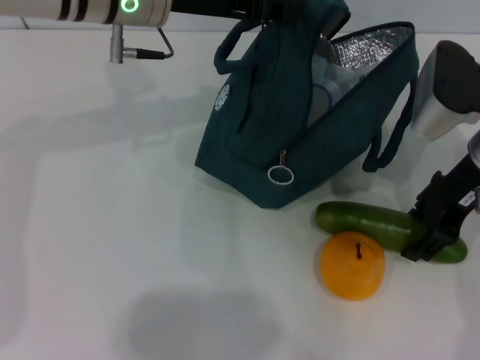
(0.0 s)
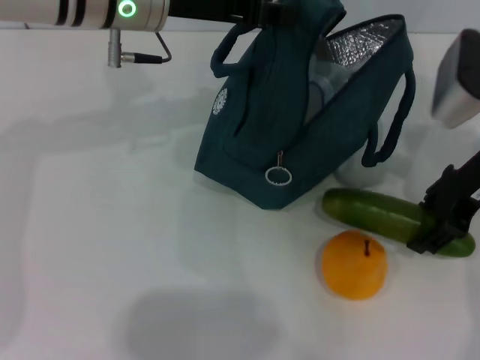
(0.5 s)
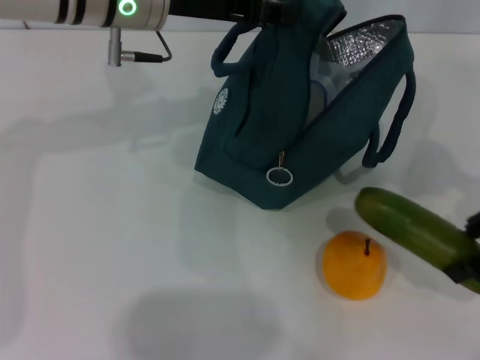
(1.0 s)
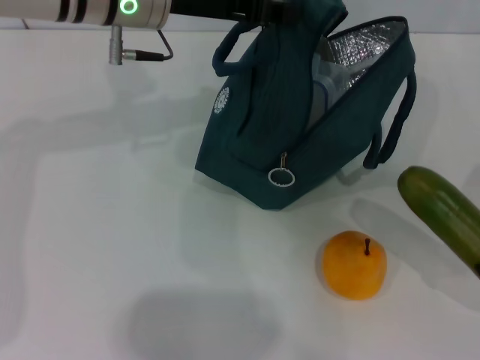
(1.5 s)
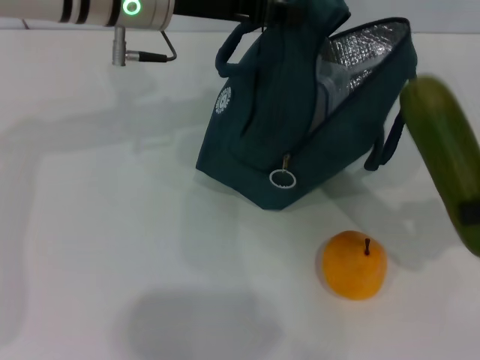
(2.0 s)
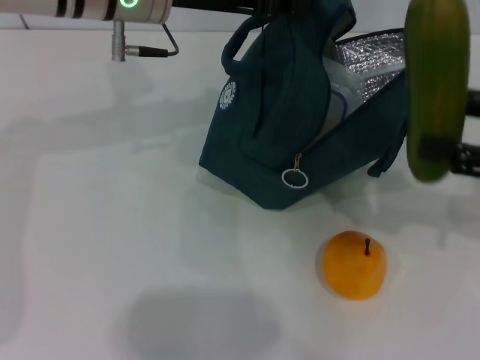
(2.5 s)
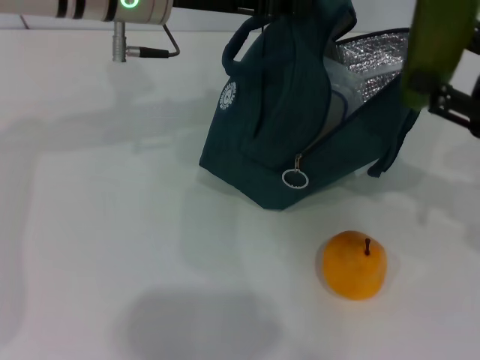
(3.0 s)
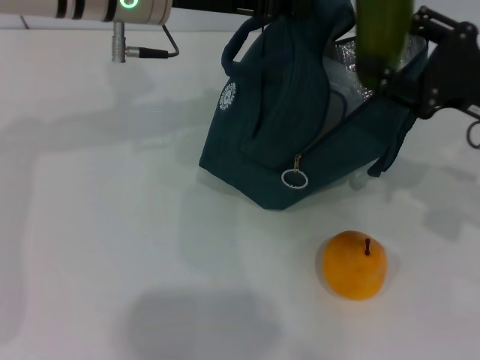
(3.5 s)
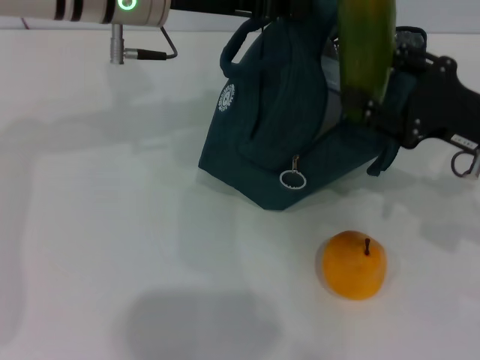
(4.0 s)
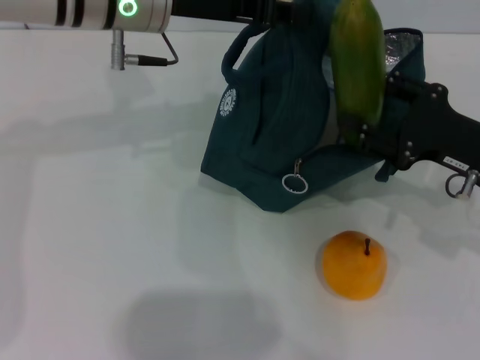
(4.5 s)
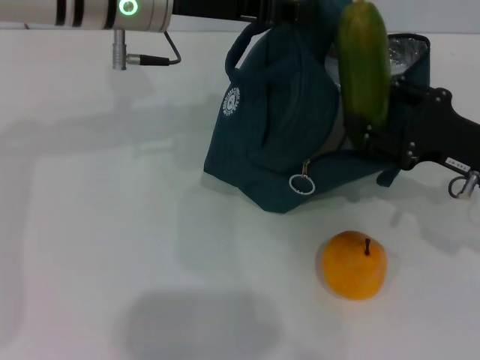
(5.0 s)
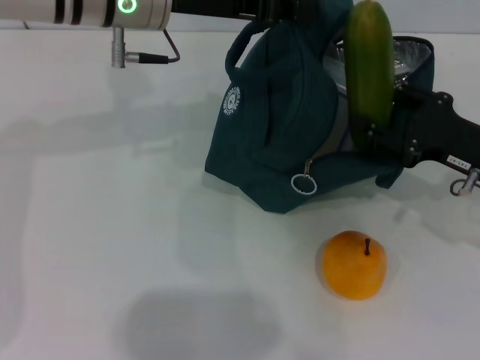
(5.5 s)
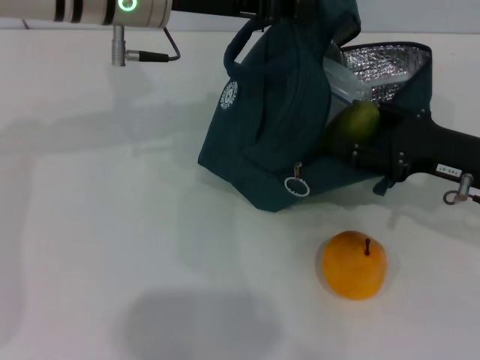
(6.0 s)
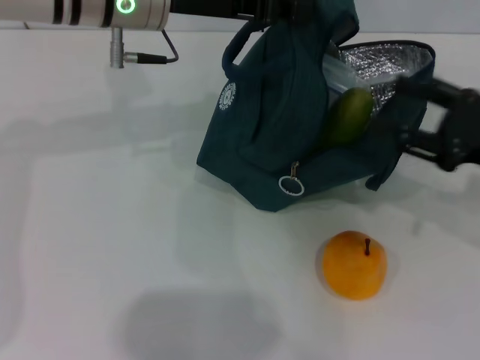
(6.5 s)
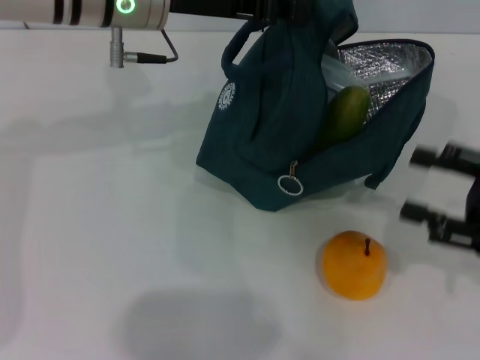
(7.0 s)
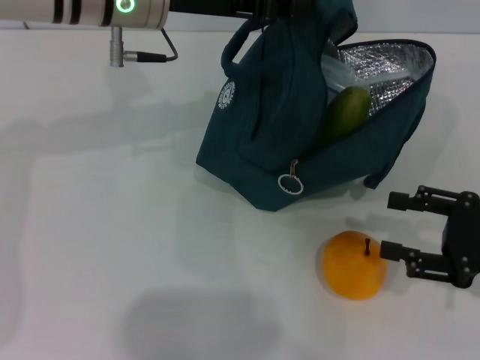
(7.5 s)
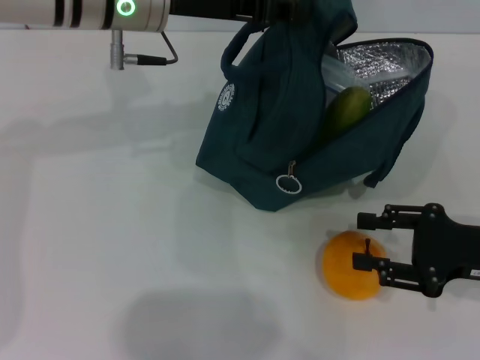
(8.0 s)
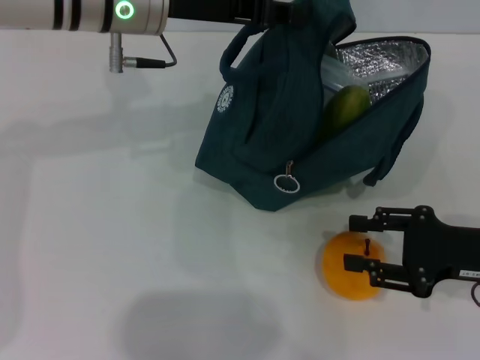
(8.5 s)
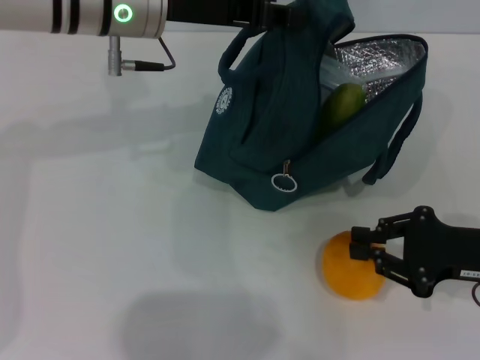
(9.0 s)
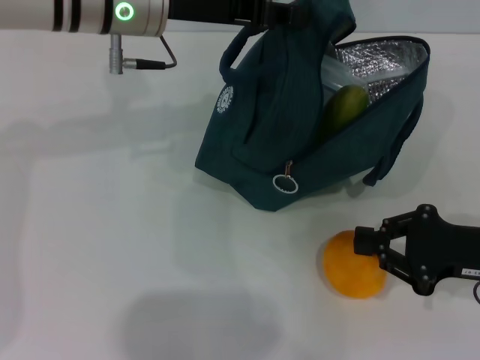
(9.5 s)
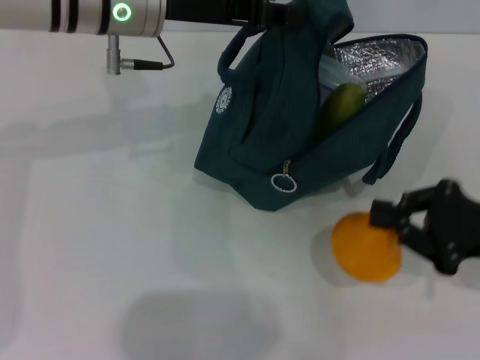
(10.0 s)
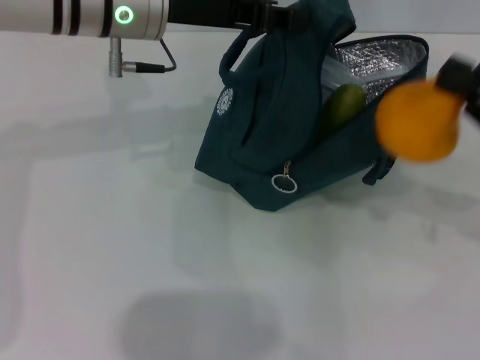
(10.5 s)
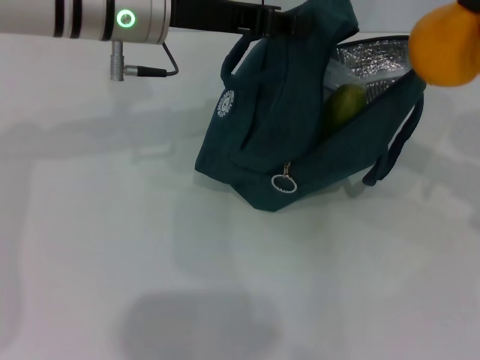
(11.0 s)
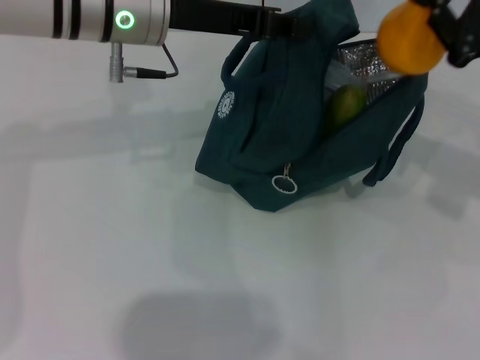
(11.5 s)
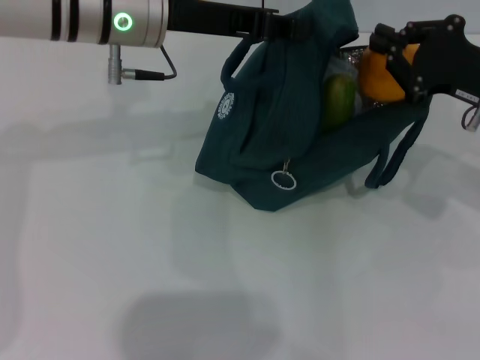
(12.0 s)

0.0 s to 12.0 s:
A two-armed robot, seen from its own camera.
Step, 0.5 to 6.0 s: Put the cucumber into the lunch bag with your right hand.
Step, 7.0 to 9.5 s: Grab the pear with your right hand.
0.0 to 2.0 s: The right gripper moves to the right and backward, about 15 cm.
2.0 to 4.0 s: The right gripper shifts about 10 cm to the left and downward.
6.0 to 8.0 s: The right gripper moves backward, some 5 cm.
8.0 to 10.0 s: The right gripper closes up.
10.0 to 12.0 s: The right gripper shifts roughly 10 cm forward.

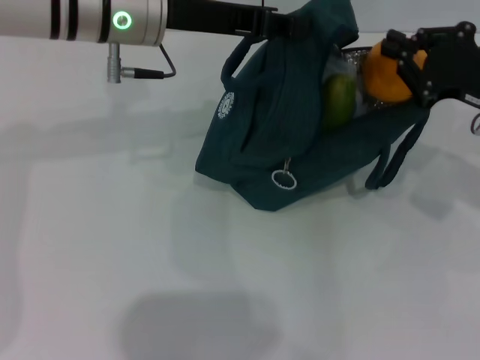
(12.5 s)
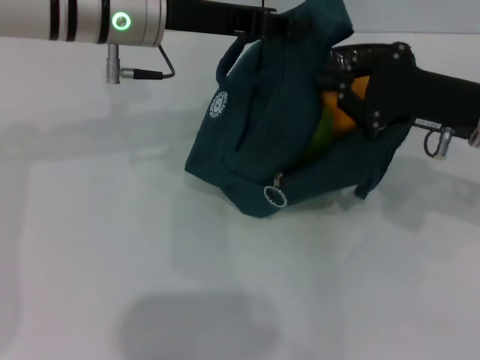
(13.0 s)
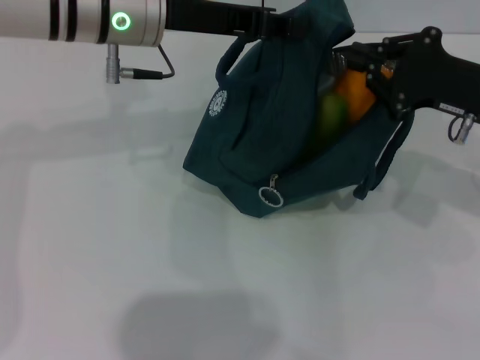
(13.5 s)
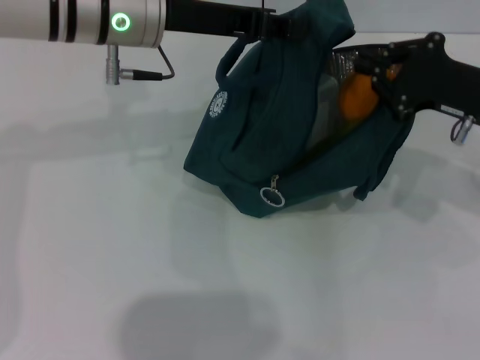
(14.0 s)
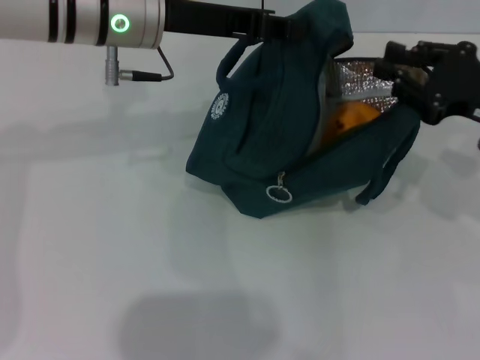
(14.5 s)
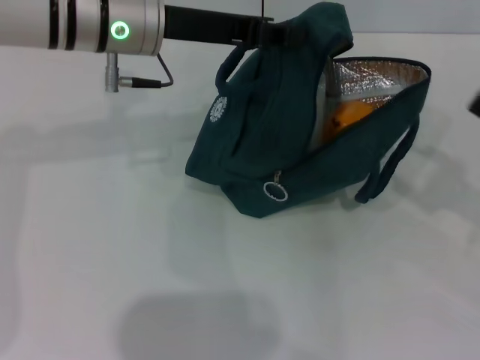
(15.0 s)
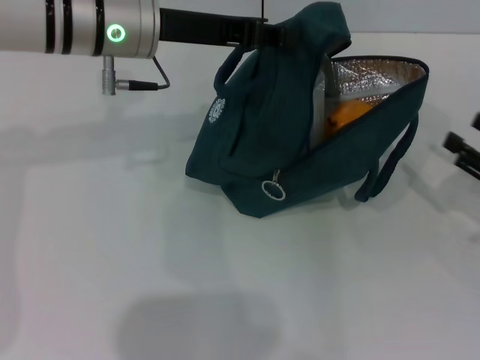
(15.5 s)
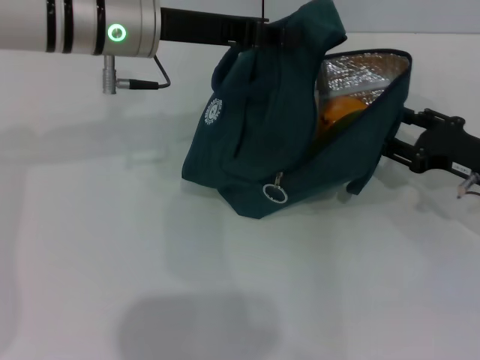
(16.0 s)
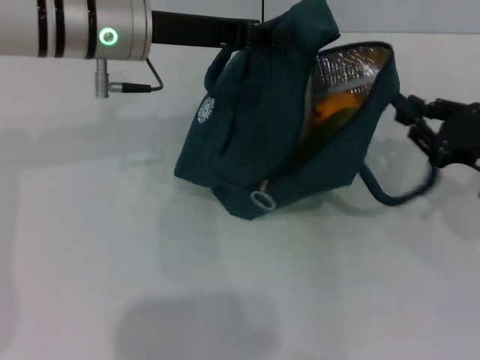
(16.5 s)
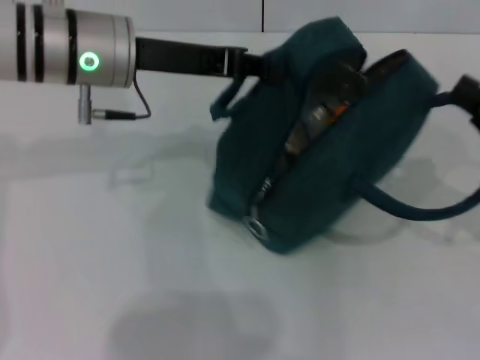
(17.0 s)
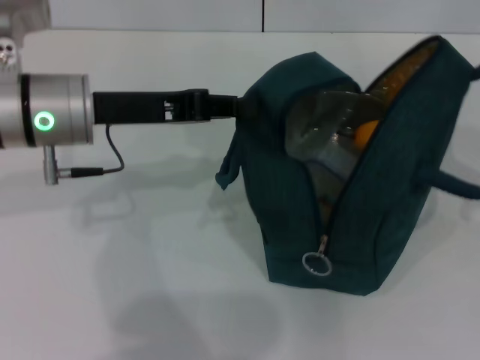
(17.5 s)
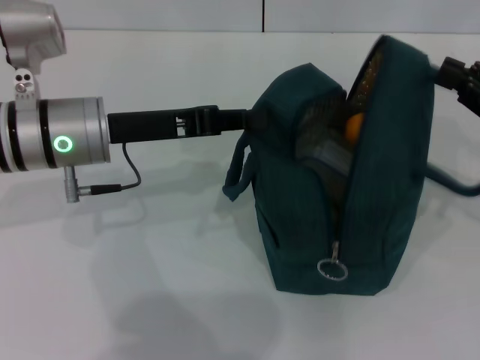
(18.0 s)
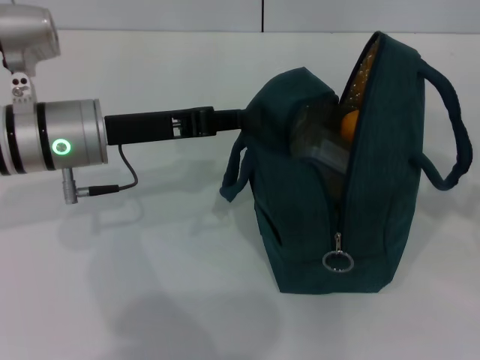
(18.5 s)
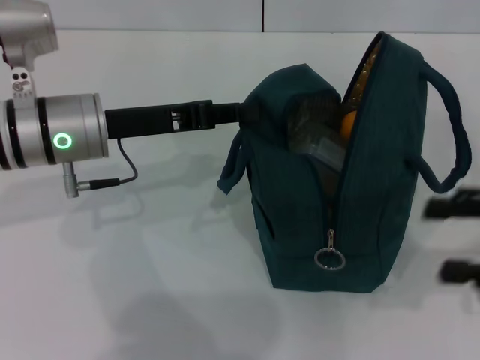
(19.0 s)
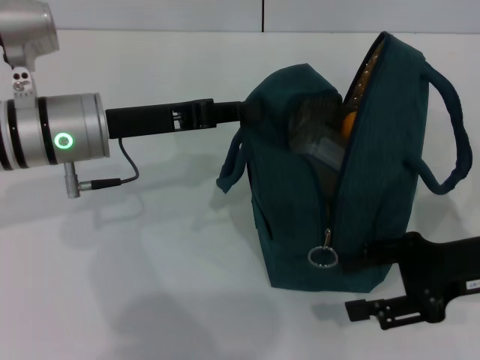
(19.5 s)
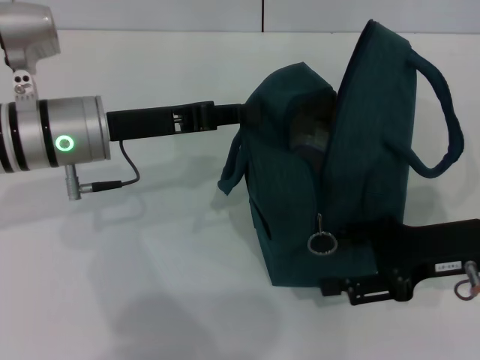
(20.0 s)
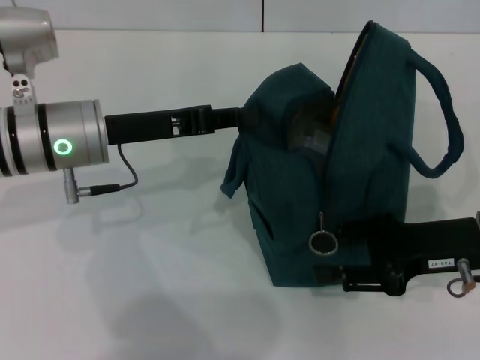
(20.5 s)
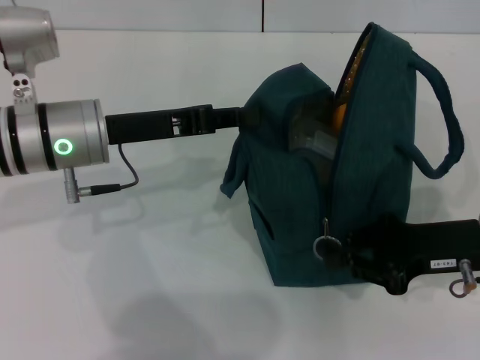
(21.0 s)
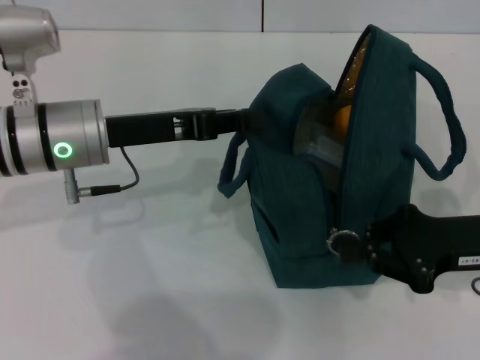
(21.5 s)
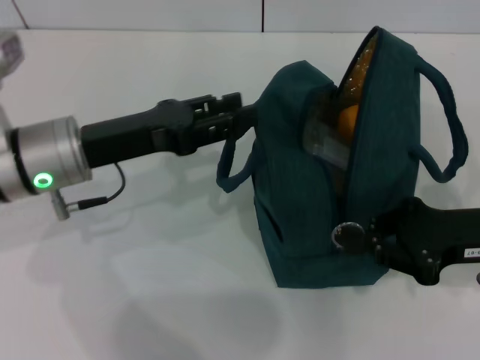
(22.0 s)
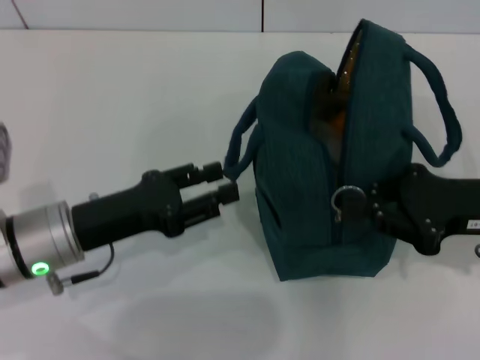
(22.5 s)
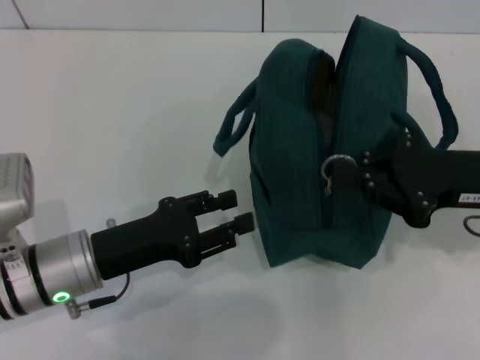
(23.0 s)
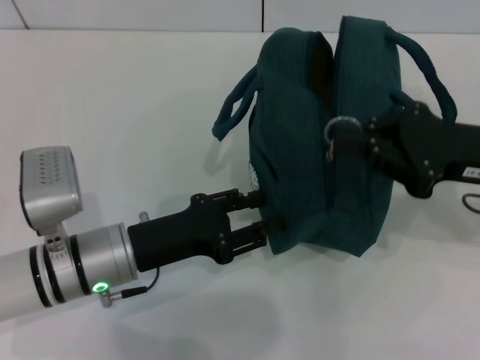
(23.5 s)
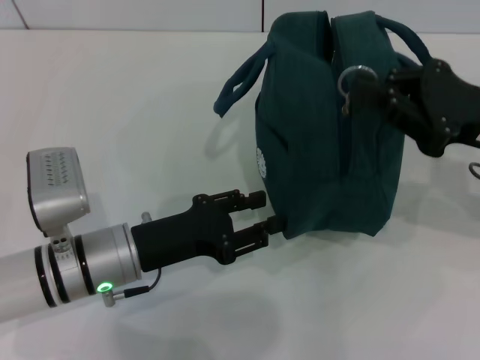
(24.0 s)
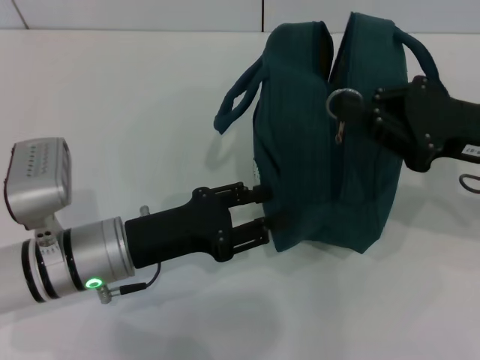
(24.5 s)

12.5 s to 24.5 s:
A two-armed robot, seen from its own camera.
Step, 15.0 to 18.0 s: Hold the lunch bag with your right hand.
12.5 to 14.5 s: The grippers move only a little.
14.5 to 16.5 s: The right gripper heads downward, covering roughly 5 cm, and opens its fingers.
16.5 to 18.5 s: The right gripper travels upward and to the right by roughly 10 cm, and closes, then reopens; the left gripper shifts some 10 cm downward and backward.
18.5 to 20.5 s: The right gripper shifts about 15 cm to the left and downward.
20.5 to 22.5 s: The right gripper closes its fingers. Meanwhile the left gripper moves backward and downward, about 10 cm, and opens up.

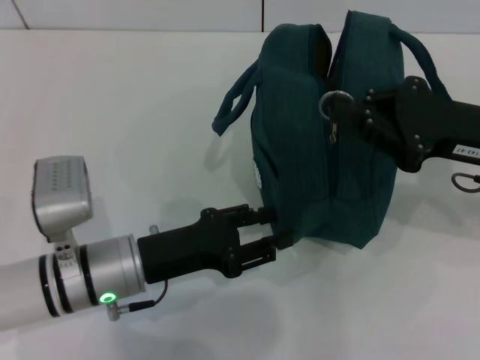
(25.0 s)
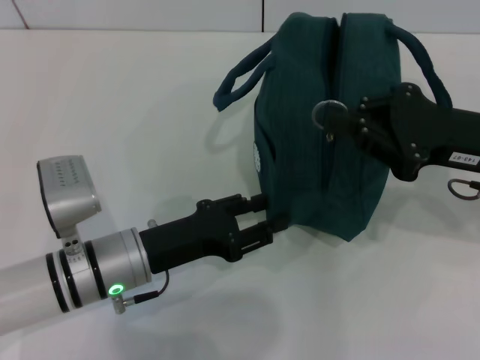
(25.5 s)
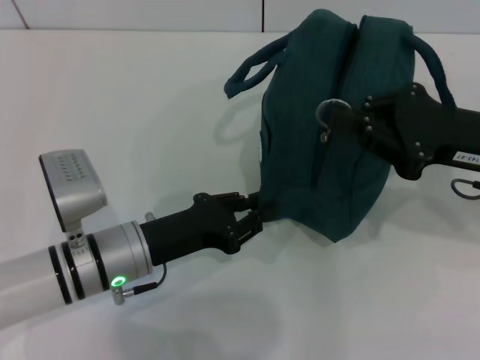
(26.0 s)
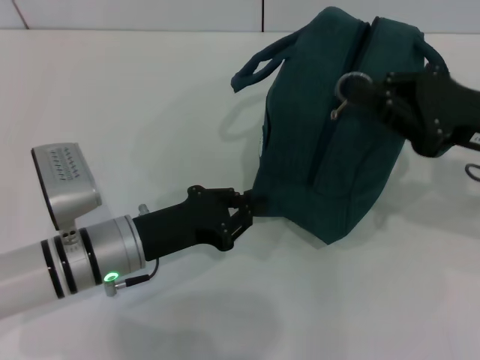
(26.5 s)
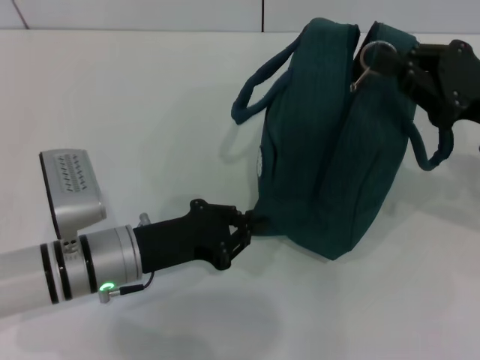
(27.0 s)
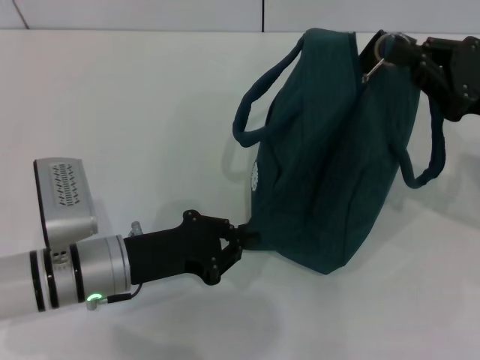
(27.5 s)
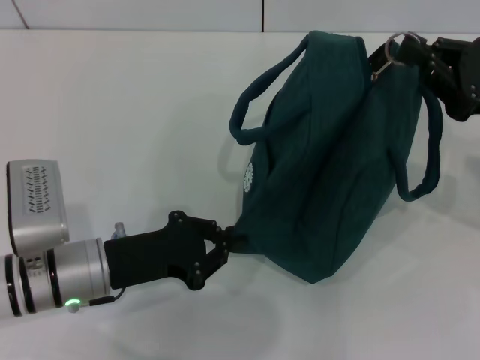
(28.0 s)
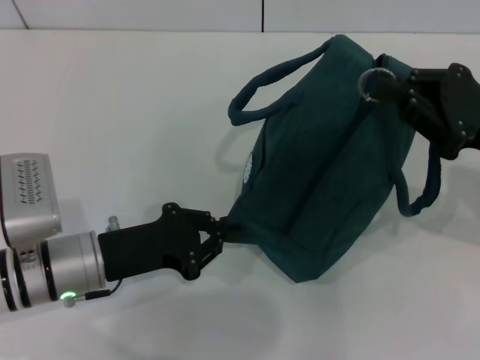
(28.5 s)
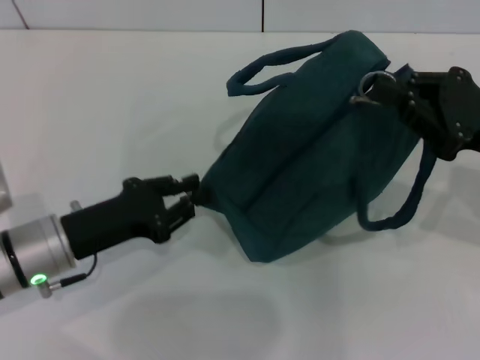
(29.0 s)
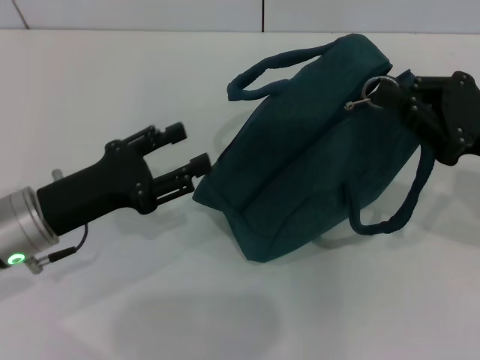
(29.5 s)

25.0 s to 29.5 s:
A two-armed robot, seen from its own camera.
25.0 to 27.0 s: The left gripper closes its fingers.
27.0 to 29.5 s: The left gripper is displaced to the left and upward by roughly 10 cm, and opens its fingers.
